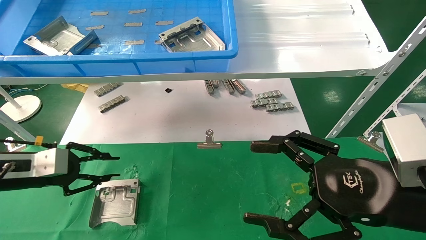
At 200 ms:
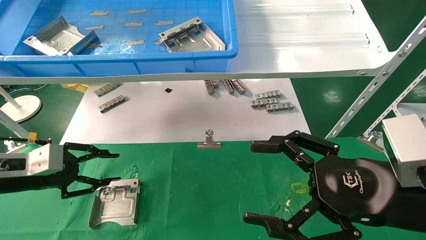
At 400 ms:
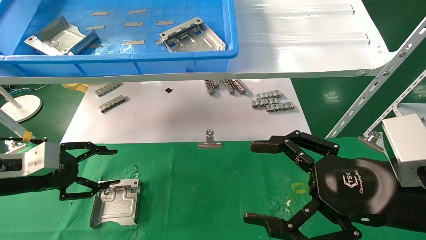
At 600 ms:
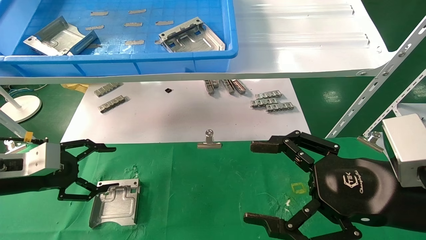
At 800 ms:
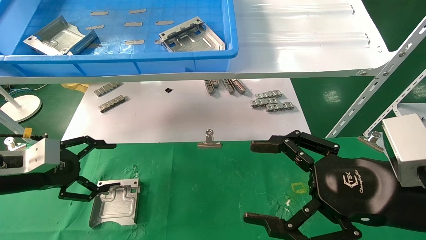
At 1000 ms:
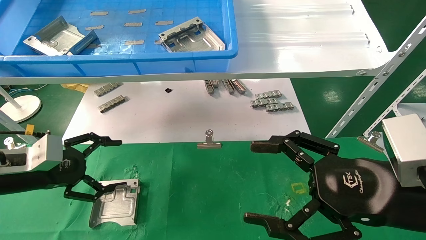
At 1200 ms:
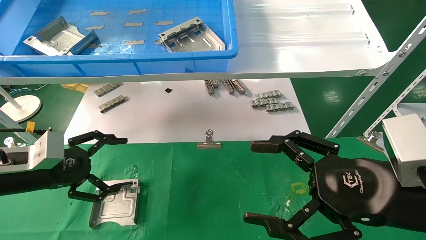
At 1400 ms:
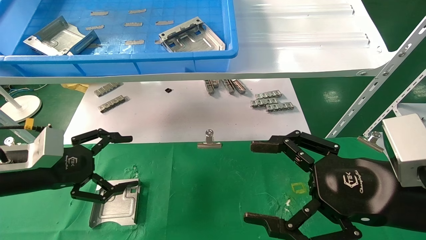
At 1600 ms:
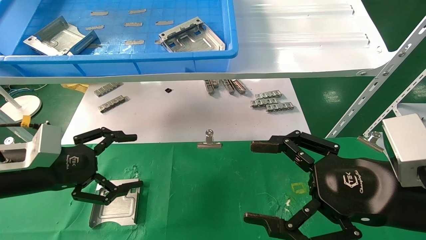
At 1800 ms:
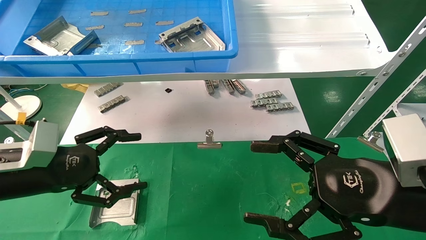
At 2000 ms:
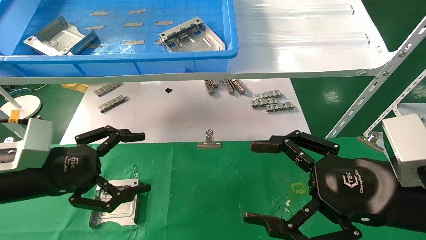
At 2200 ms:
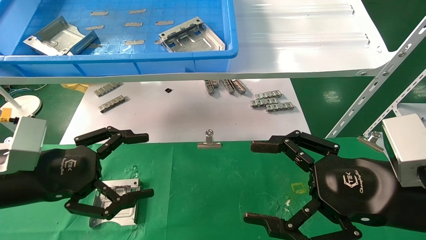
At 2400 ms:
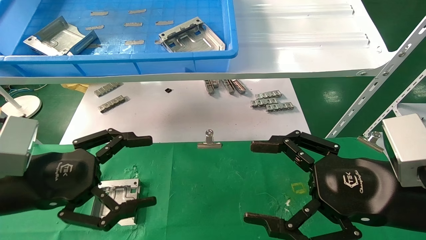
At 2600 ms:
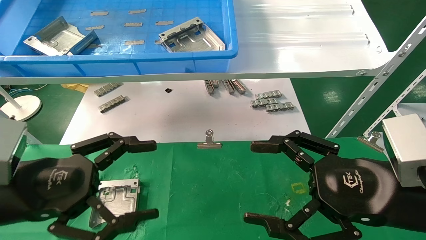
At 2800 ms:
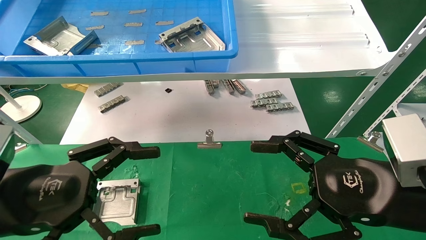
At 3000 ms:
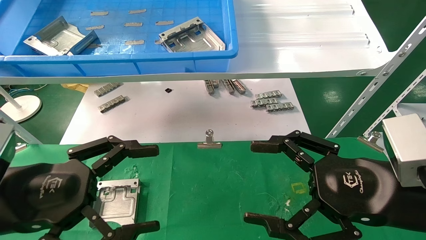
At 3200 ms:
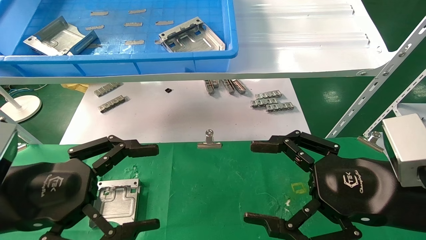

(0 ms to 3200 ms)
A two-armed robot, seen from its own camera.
Task of the whole recording: use the mechanical arm to pick up the parts and place them on the table.
0 ms - 1600 ms: The left gripper shifts approximately 5 cm to the right, and opens its fingers.
1600 ms - 3200 ms: The left gripper shifts about 10 cm backward and to the right.
